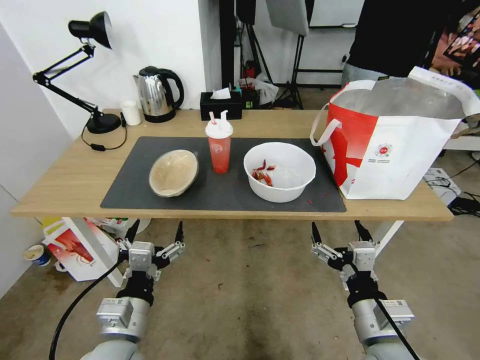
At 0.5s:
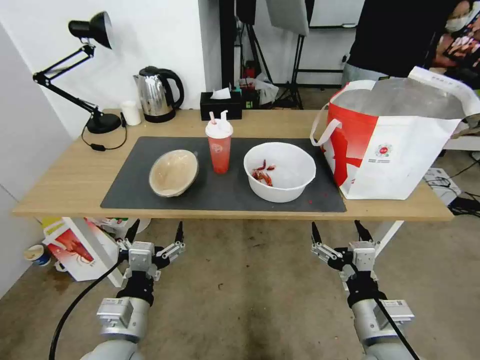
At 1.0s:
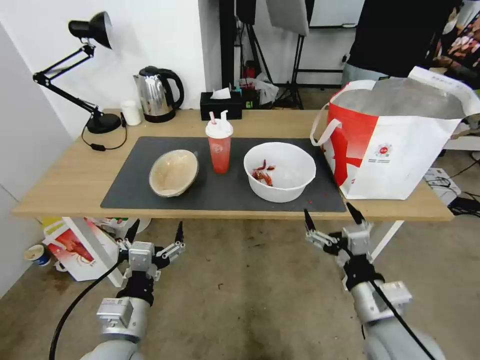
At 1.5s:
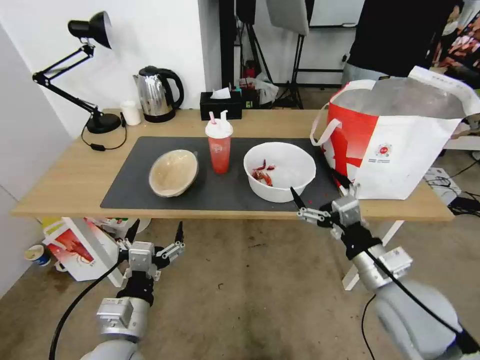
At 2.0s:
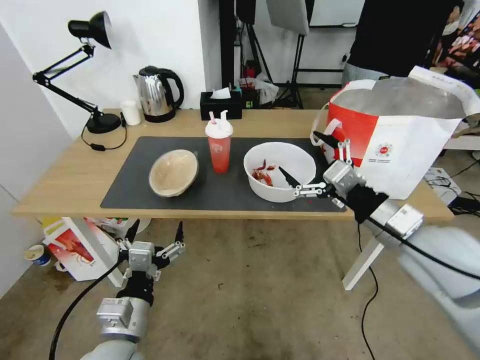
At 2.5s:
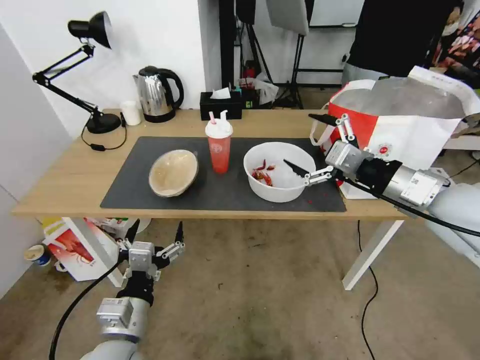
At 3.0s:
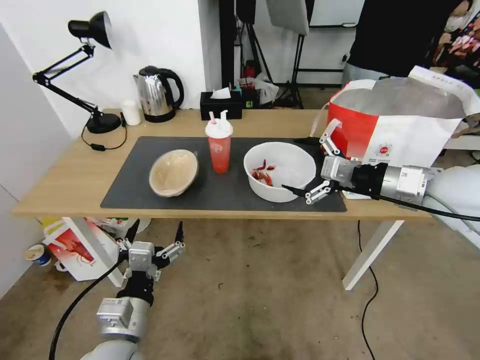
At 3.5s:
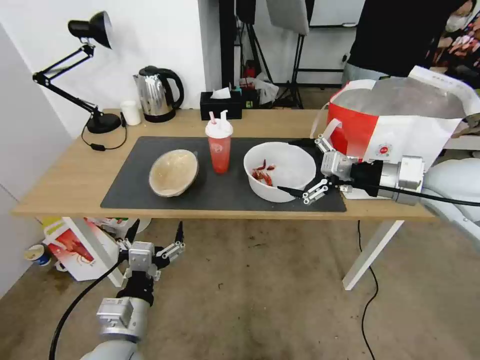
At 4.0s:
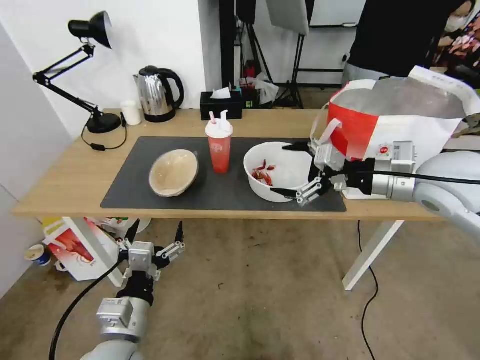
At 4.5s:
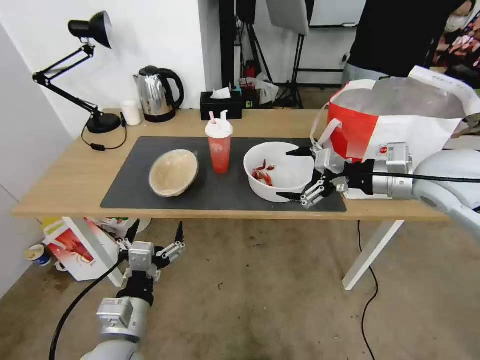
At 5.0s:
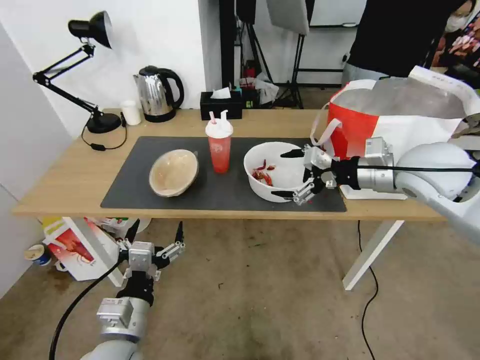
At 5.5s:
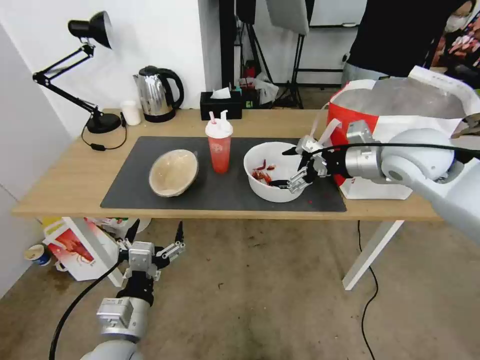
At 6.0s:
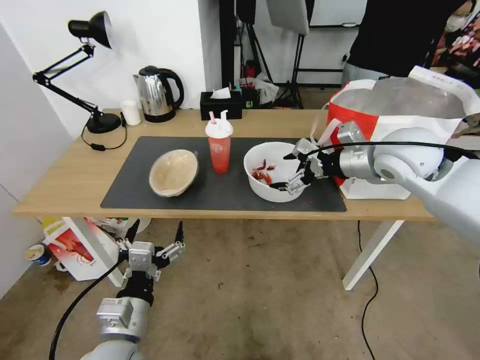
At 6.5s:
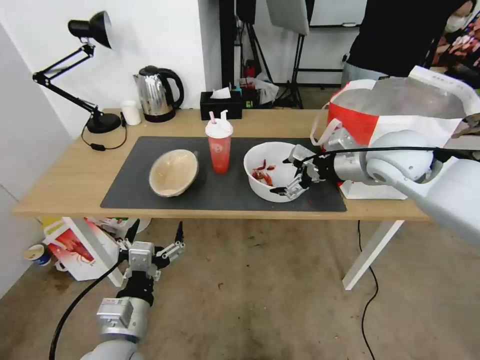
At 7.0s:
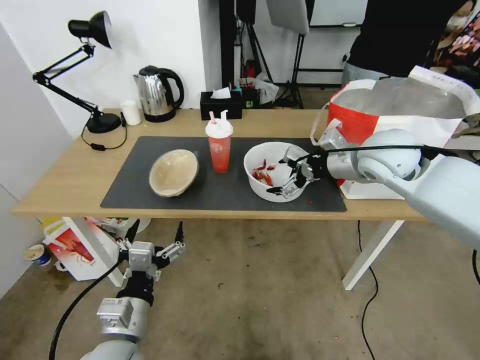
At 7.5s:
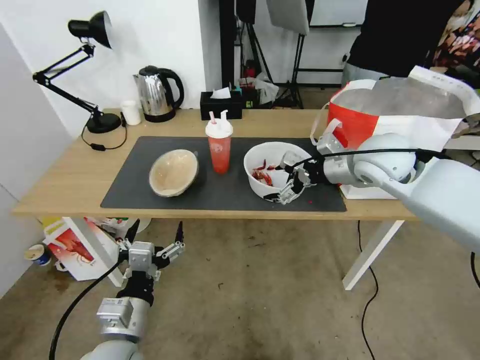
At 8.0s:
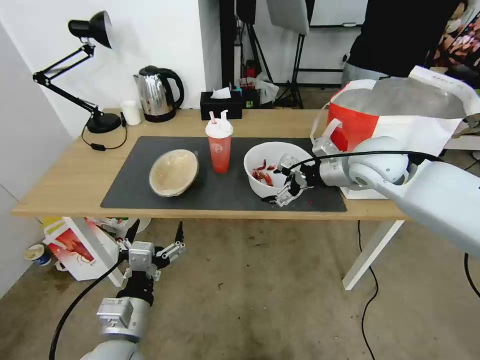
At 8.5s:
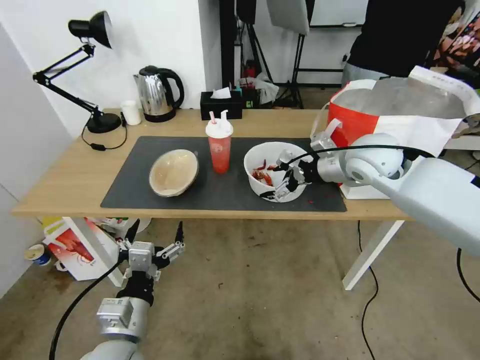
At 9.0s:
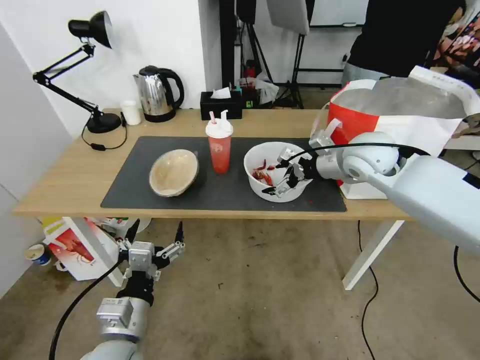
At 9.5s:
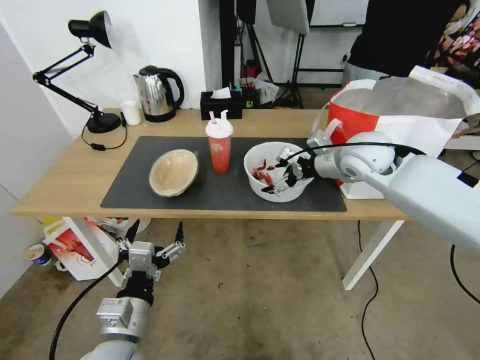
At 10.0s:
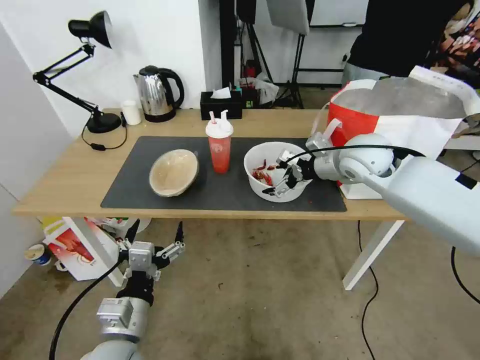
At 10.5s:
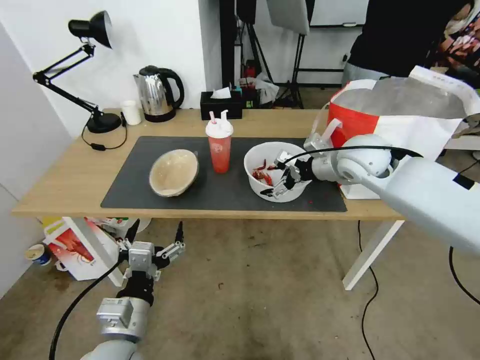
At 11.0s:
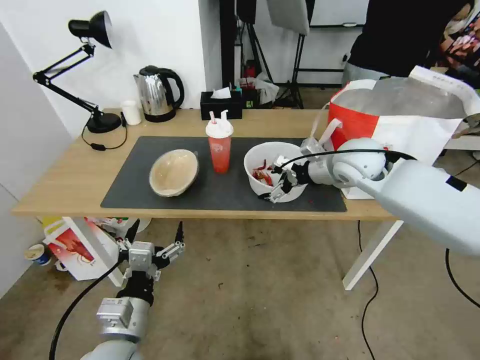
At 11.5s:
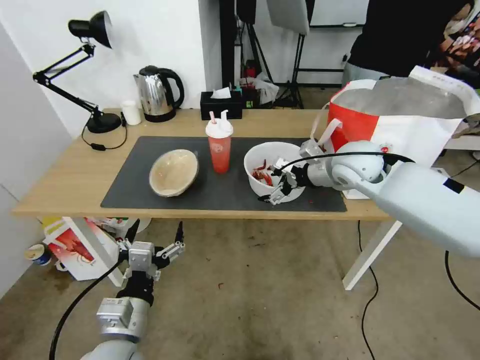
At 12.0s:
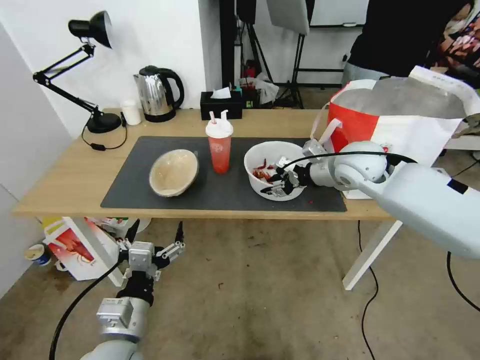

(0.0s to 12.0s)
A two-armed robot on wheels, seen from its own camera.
Task of the whole recording: Pick up the trash from the table and place it into the takeout bag.
2.0s - 4.0s: The right gripper travels forward and upward by about 10 cm.
4.0s - 6.0s: The right gripper shifts some 5 cm forward.
6.0s - 8.0s: The grippers make only small movements.
8.0s - 10.0s: The grippers make only small movements.
10.0s - 12.0s: The right gripper closes.

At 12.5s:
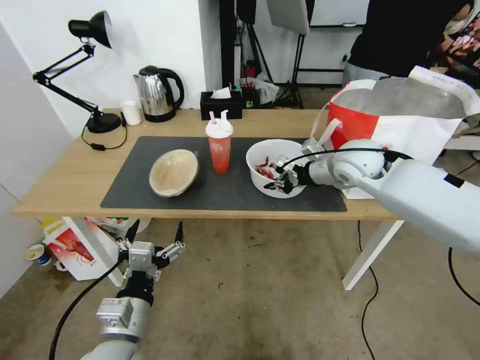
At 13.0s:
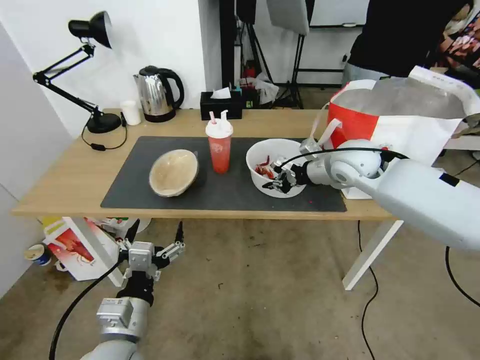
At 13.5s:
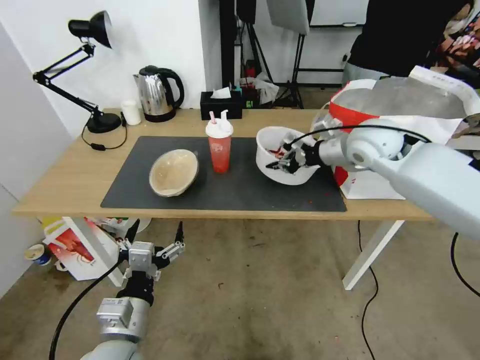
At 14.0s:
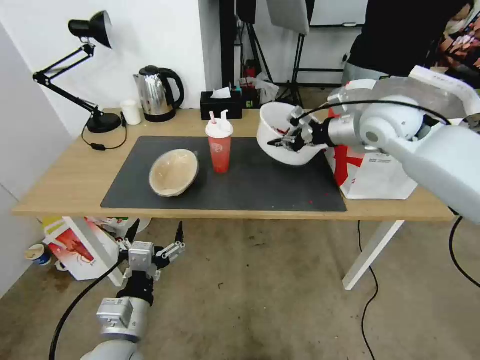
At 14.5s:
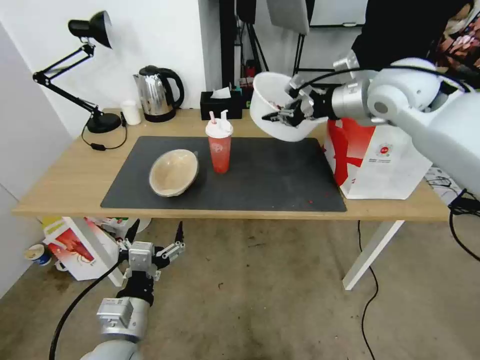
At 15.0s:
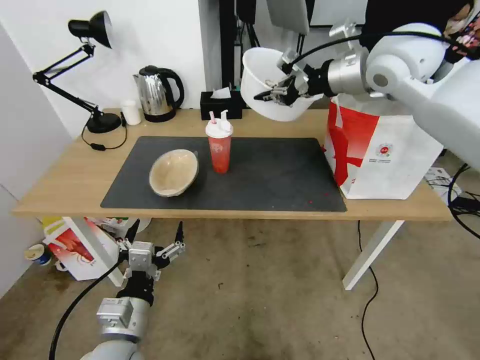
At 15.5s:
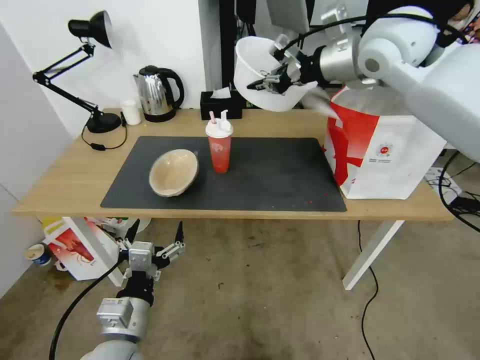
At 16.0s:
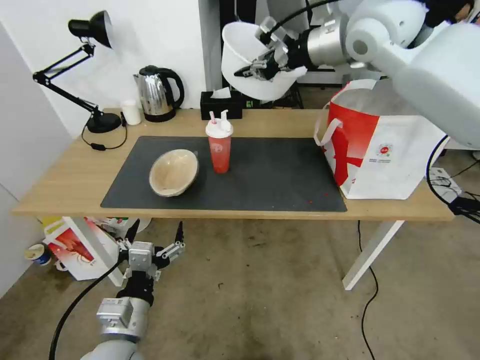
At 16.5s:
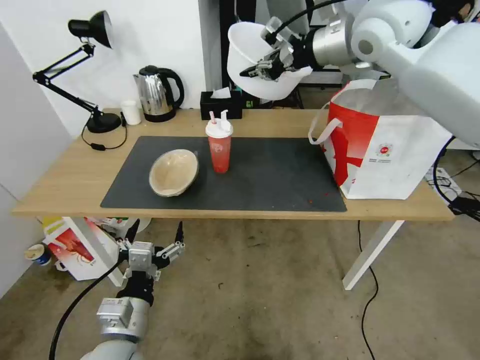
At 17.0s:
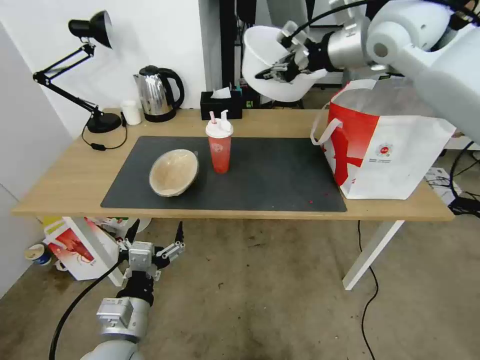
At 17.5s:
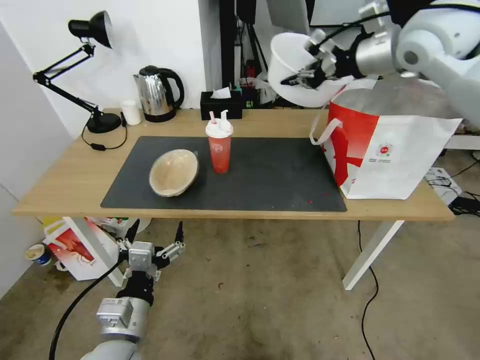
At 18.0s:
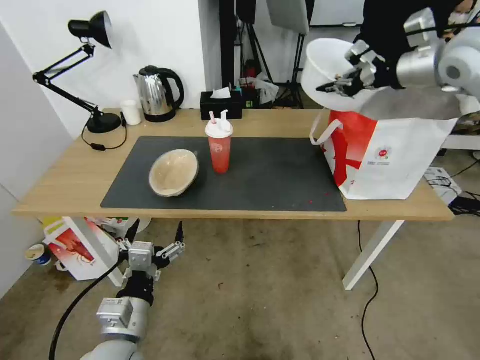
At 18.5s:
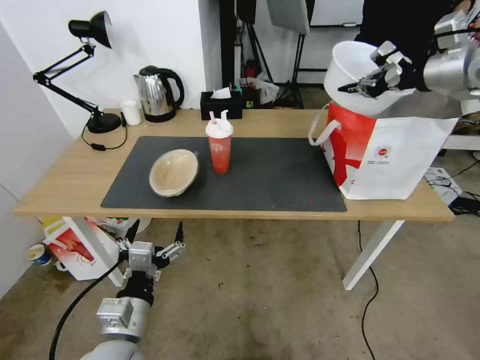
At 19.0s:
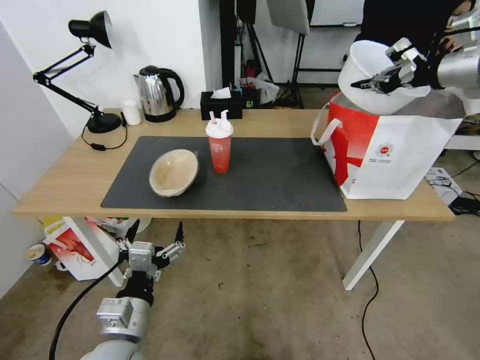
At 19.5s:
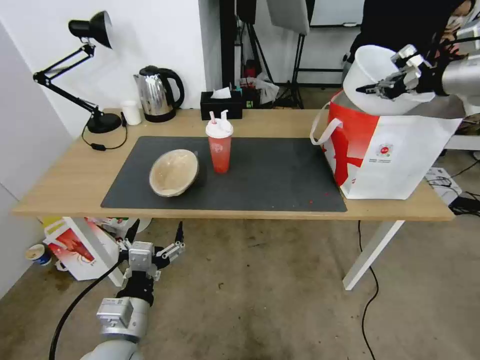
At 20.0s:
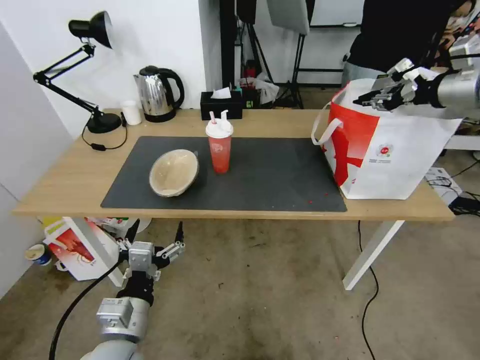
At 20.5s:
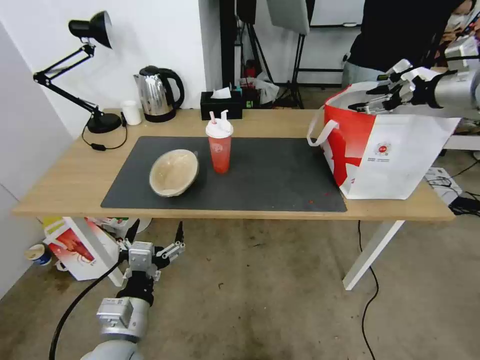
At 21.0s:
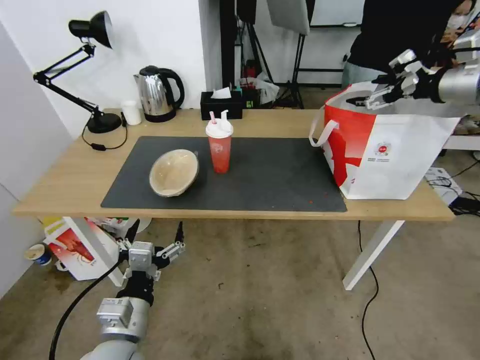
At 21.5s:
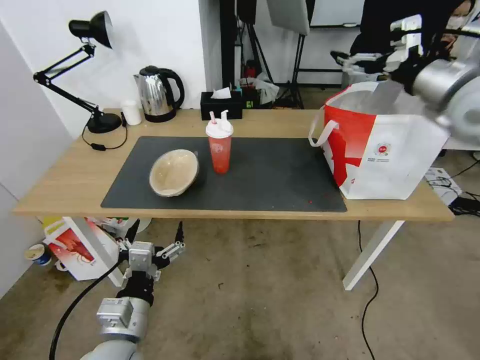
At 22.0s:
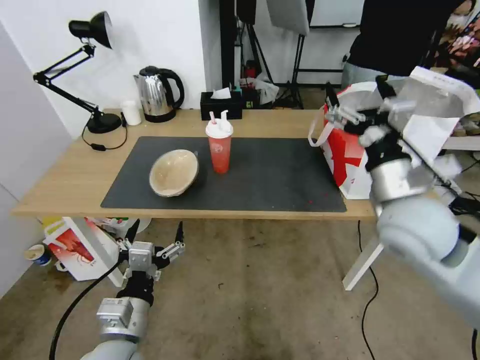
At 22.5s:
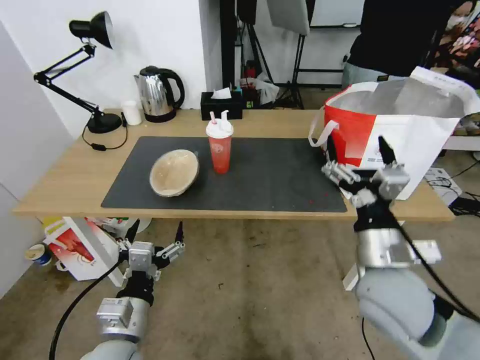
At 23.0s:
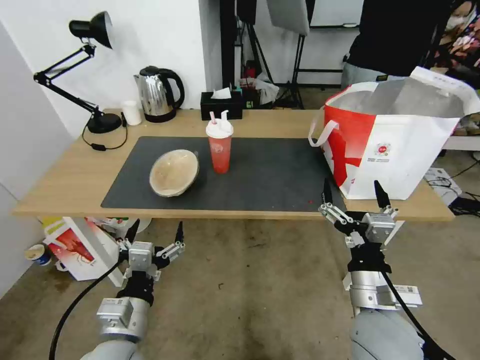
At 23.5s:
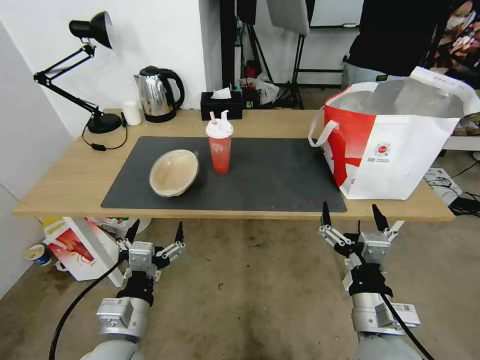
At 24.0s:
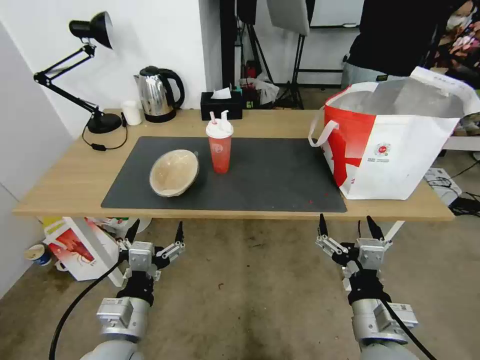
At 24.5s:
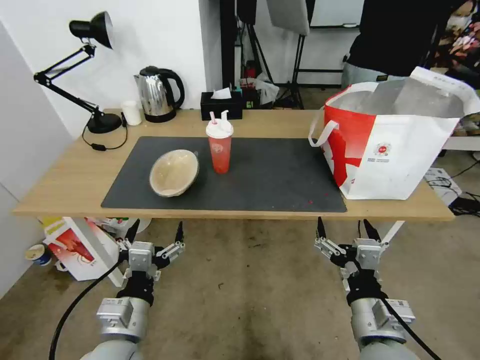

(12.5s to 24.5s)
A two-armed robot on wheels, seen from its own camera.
Task of the whole recording: Pick up the trash from the table and place it into the takeout bag.
12.5s - 14.5s: The right gripper shifts about 15 cm upward.
14.5s - 16.5s: The right gripper heads upward, covering about 10 cm.
16.5s - 18.5s: The right gripper is displaced to the right by about 20 cm.
18.5s - 20.5s: The right gripper moves some 5 cm, and opens.
20.5s - 22.5s: The right gripper travels backward, downward and to the left by roughly 40 cm.
22.5s - 24.5s: The right gripper shifts about 15 cm backward and downward.

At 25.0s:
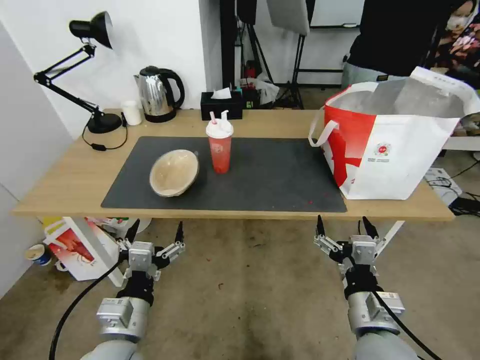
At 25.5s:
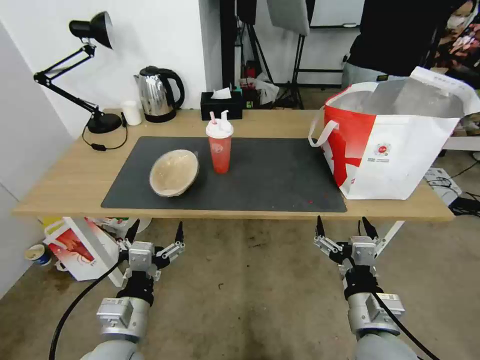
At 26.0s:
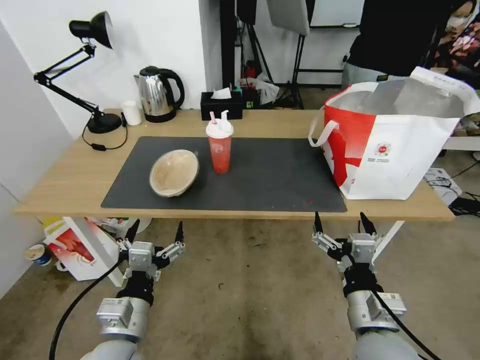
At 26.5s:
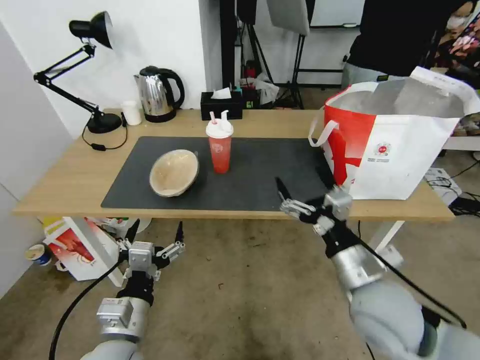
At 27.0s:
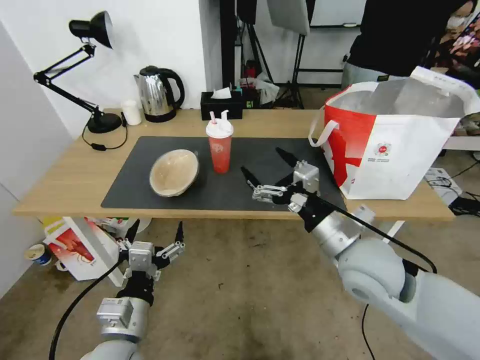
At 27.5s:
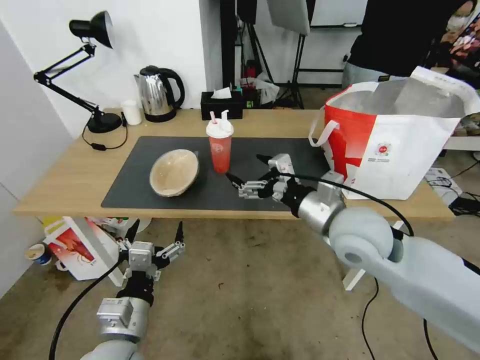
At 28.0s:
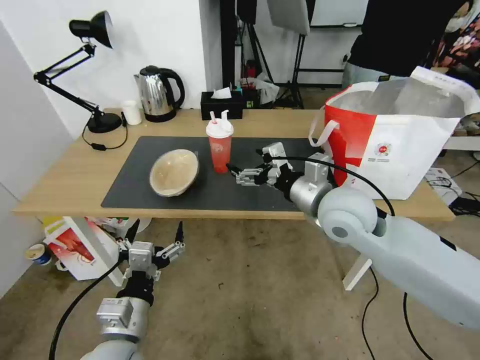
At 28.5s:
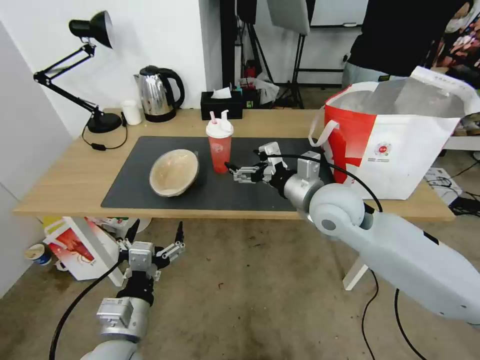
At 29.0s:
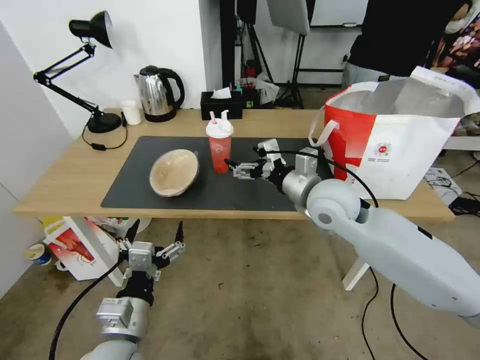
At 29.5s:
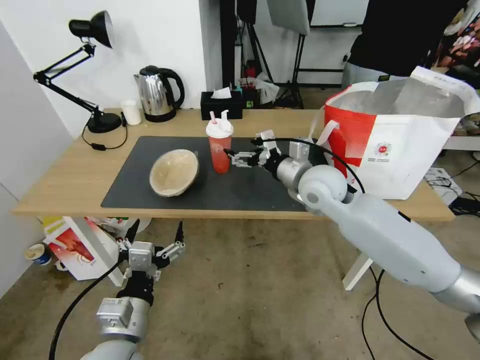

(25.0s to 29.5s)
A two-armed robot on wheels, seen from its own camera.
Task of the whole recording: Pick up the trash from the table and place it into the takeout bag.
25.0s - 27.0s: The right gripper shifts about 15 cm forward and upward.
27.0s - 29.5s: The right gripper goes about 15 cm forward.
